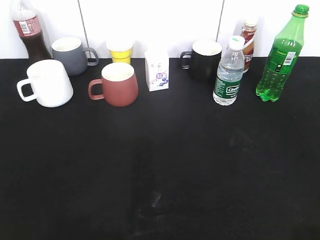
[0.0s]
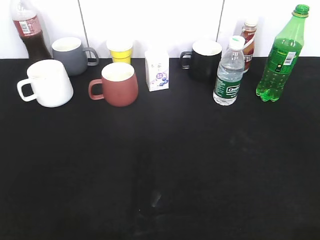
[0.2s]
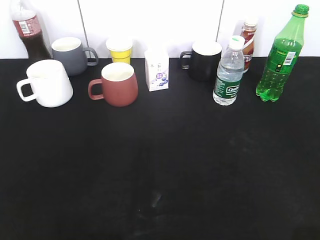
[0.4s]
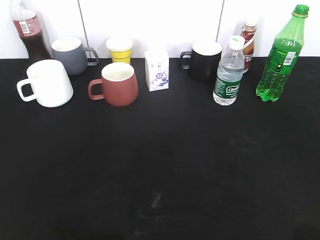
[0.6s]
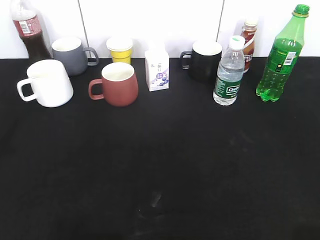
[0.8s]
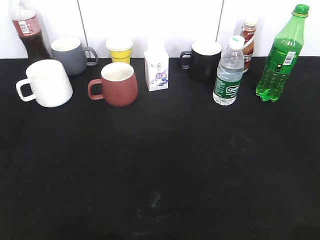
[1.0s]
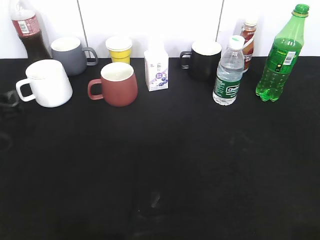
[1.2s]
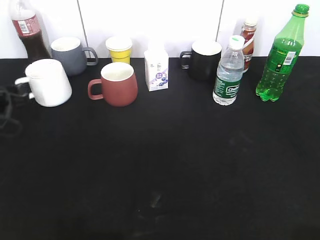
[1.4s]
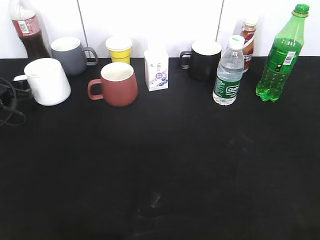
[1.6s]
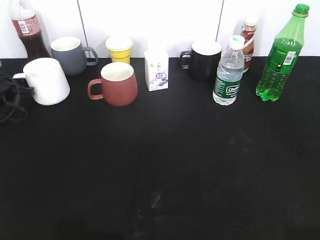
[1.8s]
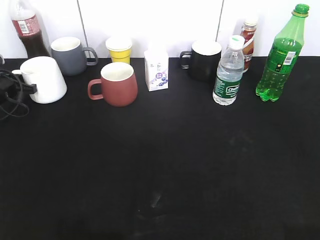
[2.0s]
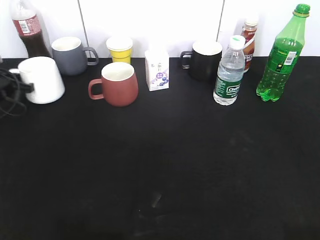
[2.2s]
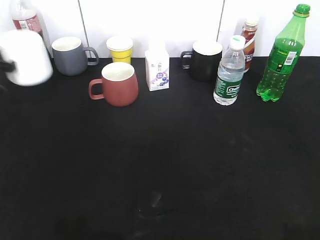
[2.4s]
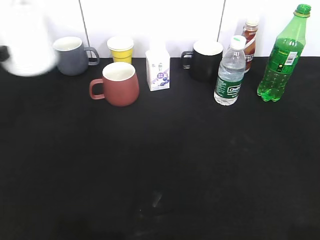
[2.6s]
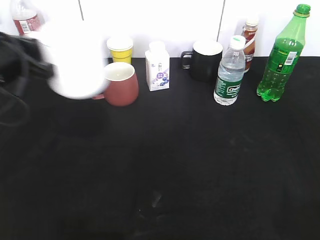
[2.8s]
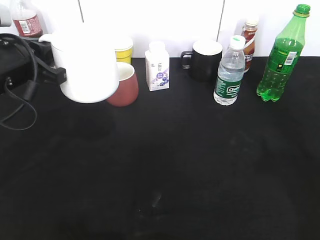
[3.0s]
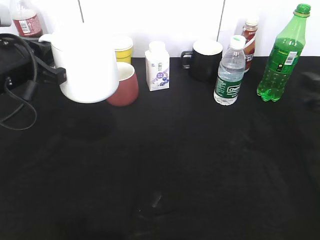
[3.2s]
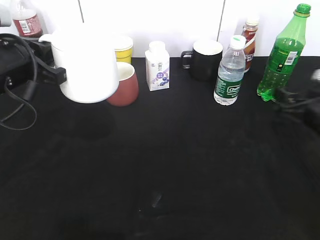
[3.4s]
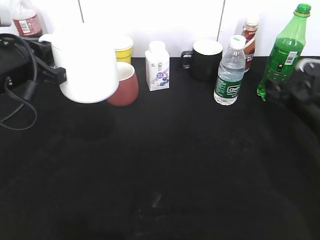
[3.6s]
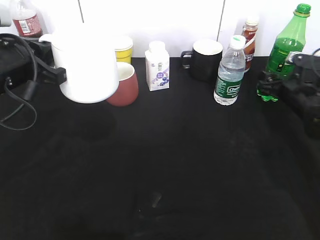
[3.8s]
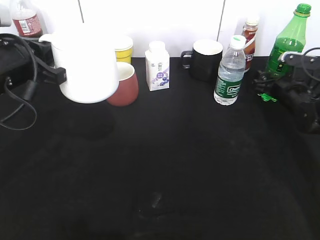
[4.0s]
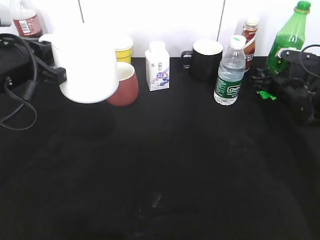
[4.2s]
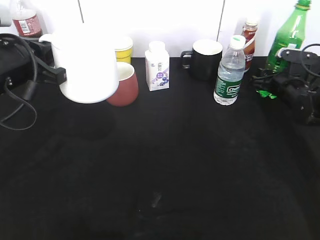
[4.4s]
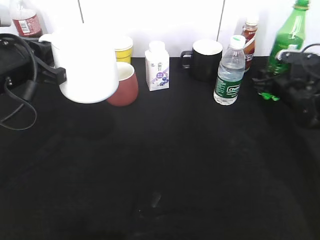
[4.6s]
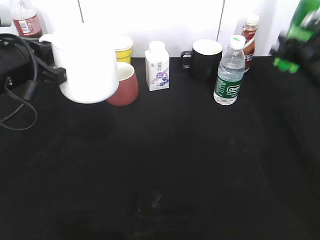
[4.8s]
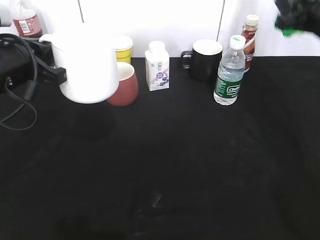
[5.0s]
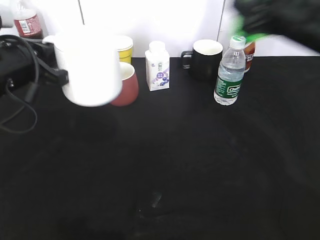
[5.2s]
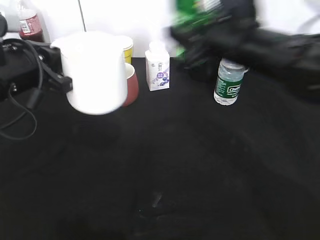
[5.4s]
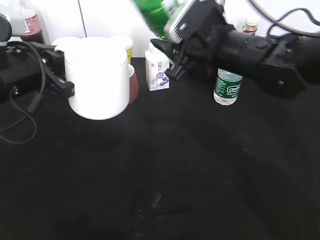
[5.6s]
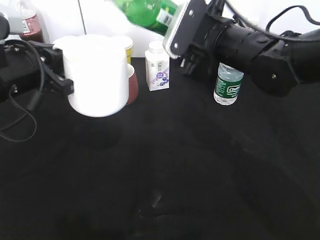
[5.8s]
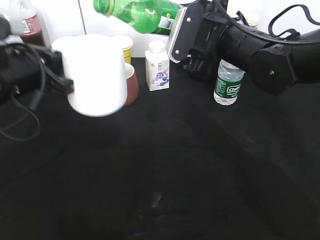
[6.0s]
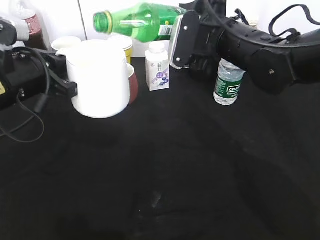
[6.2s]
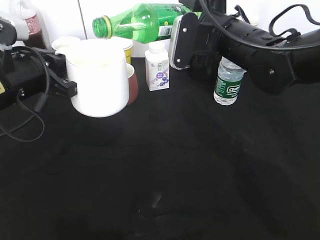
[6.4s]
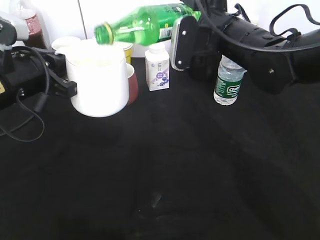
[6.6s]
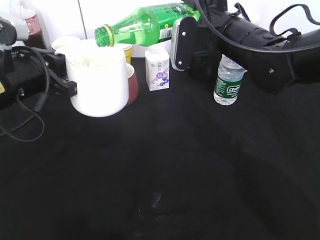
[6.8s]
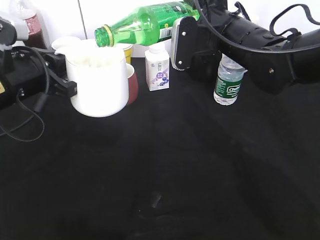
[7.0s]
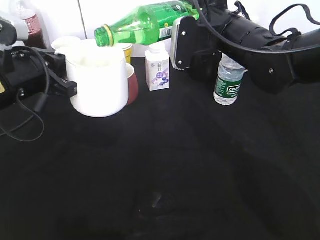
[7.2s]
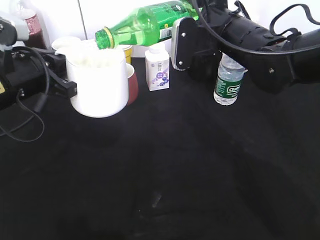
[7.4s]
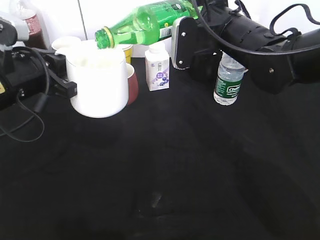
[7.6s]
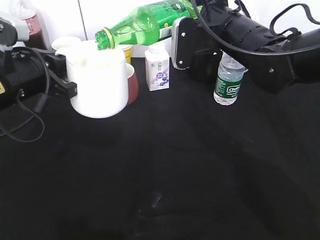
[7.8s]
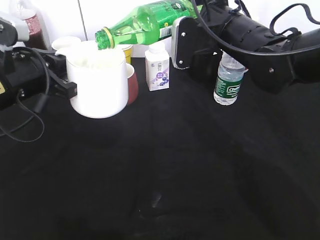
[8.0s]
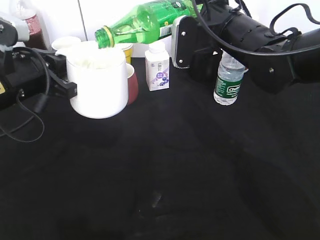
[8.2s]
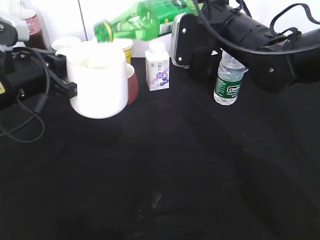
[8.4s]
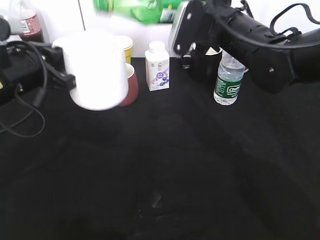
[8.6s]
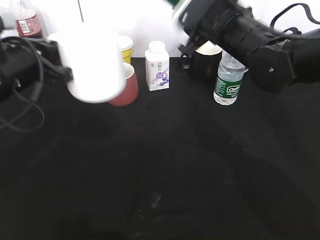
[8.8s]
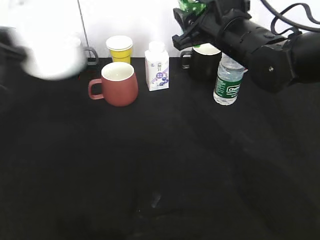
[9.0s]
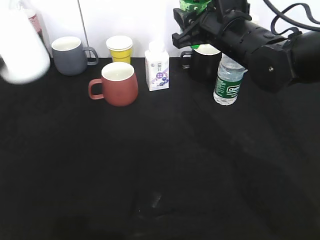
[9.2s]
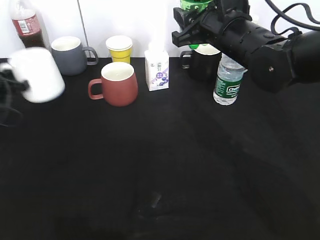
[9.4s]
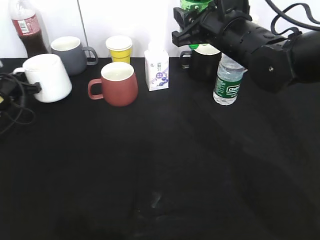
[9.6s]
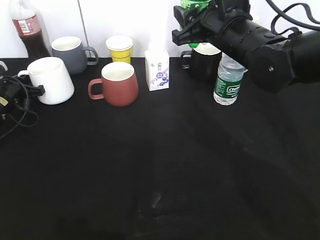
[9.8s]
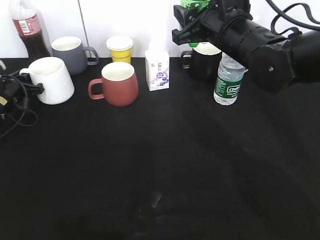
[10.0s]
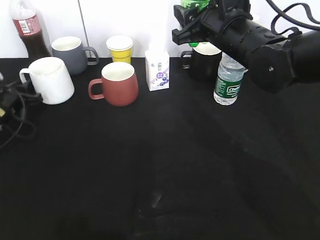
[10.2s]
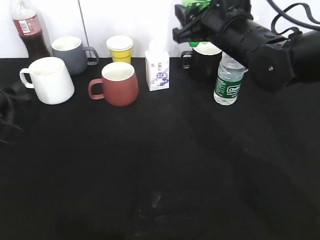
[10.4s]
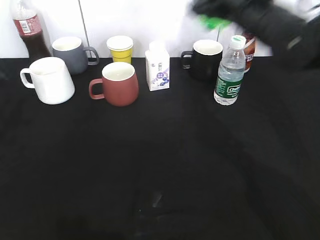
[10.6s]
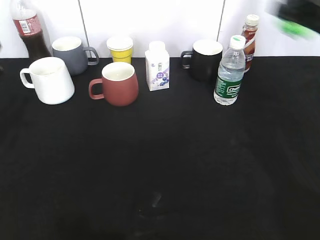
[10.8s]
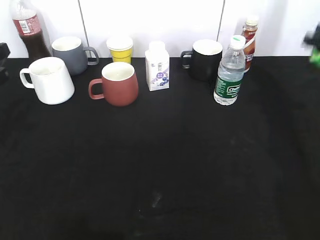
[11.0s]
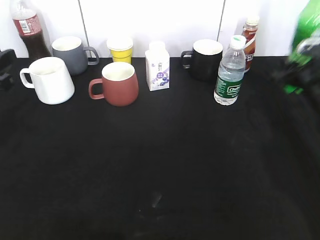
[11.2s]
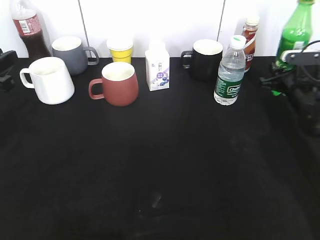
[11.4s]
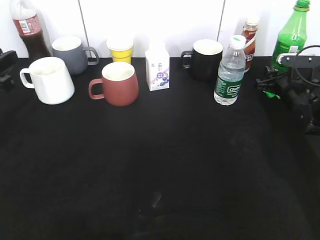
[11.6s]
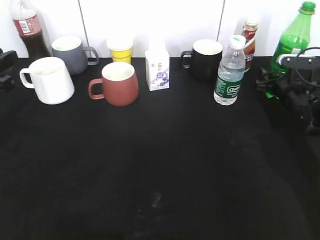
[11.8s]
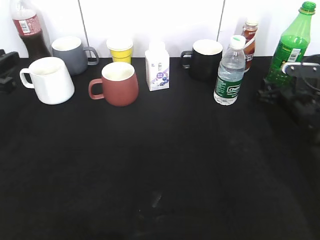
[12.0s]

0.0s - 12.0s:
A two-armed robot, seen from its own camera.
Step, 0.0s - 1.8s: Grasp the white cup with left gripper.
Step, 2.0s - 2.8s: Lift the white cup with left gripper.
Step, 3.0s - 4.2s: Grasp the bottle with sprite with right gripper.
Step, 4.6s - 8.4s: Pour the sprite from bottle to cup with right gripper.
Step, 8.8s - 10.2s: Place the white cup on the table with left gripper.
Step, 10.4s - 12.0s: Place the sprite bottle on the table with right gripper.
0.0s - 1.6s: The left gripper moves forward and downward, some 50 cm.
1.6s - 3.0s: The left gripper moves upward, to the right and backward, about 25 cm, and closes. The right gripper moves forward, about 15 cm.
3.0s - 4.4s: The right gripper moves forward and downward, approximately 35 cm, and opens, then closes again.
4.4s - 6.0s: The right gripper is displaced to the left, upward and backward by roughly 25 cm, and closes.
7.6s - 9.0s: The left gripper travels to the left by roughly 5 cm.
9.0s - 10.4s: The left gripper heads downward and forward, covering about 15 cm, and opens up.
10.4s - 12.0s: The left gripper goes approximately 15 cm upward and backward. Meanwhile the right gripper heads to the right and downward, covering about 25 cm, and opens.

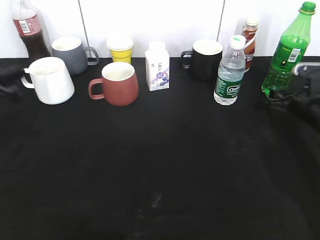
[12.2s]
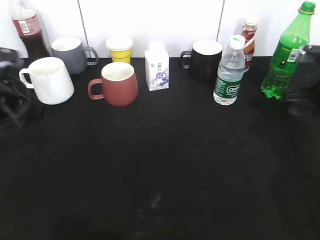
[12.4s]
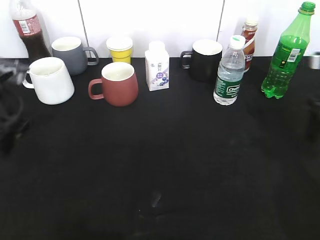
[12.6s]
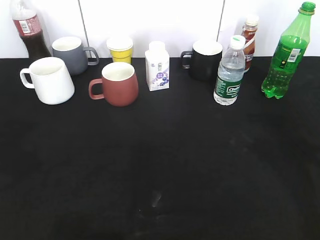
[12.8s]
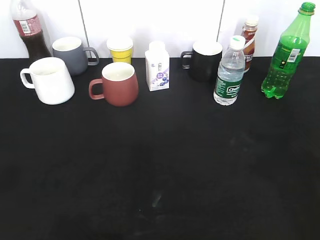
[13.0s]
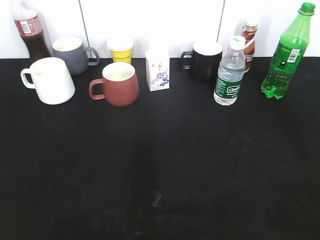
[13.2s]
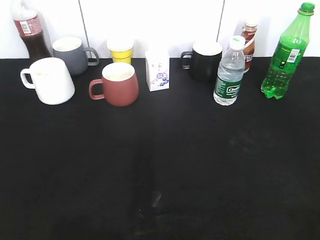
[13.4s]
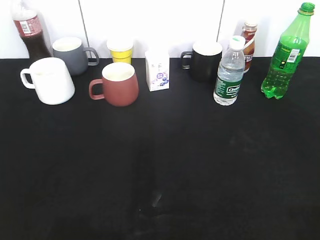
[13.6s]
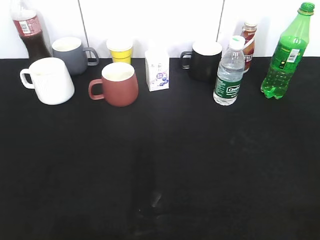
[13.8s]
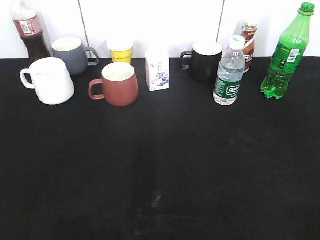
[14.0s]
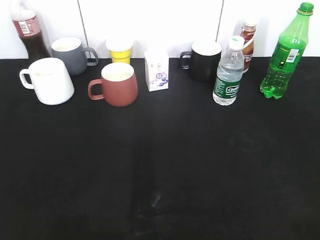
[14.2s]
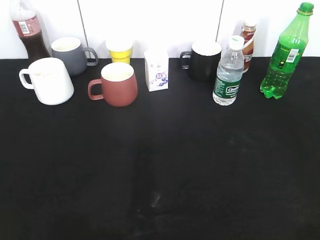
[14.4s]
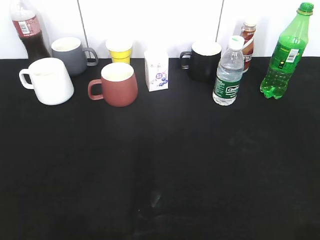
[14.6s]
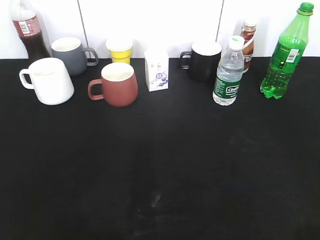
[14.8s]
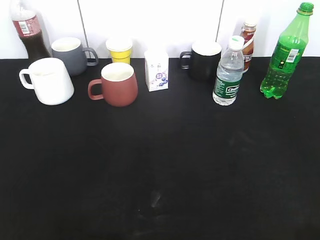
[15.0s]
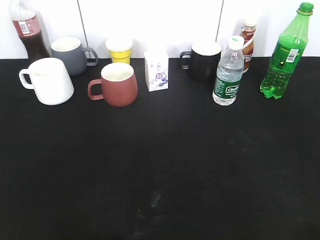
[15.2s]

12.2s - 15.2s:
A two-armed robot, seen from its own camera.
12.2s - 13.8s: Both grippers move backward and upward, roughly 35 cm. The left gripper opens up.
13.8s - 15.2s: The left gripper closes its fingers.

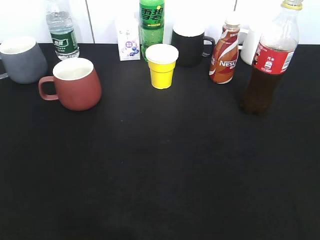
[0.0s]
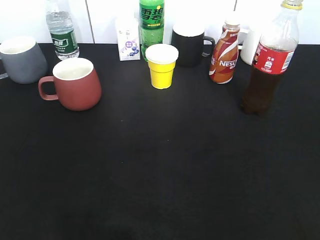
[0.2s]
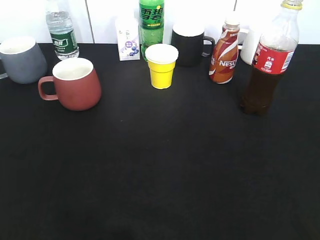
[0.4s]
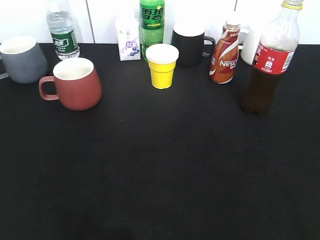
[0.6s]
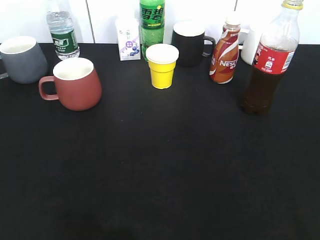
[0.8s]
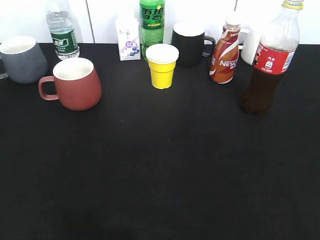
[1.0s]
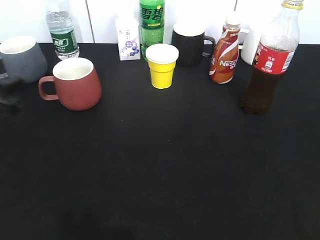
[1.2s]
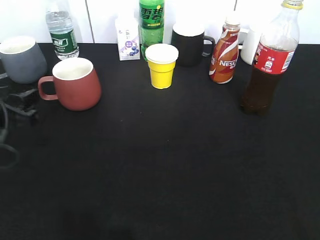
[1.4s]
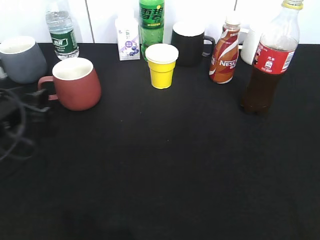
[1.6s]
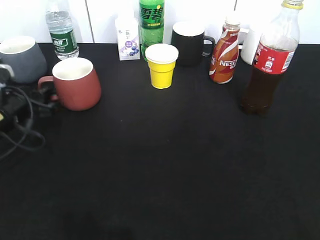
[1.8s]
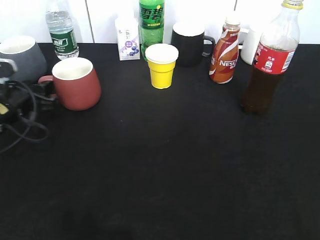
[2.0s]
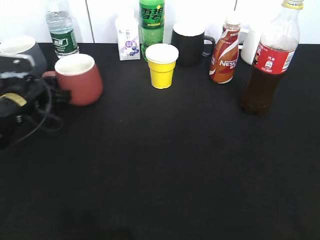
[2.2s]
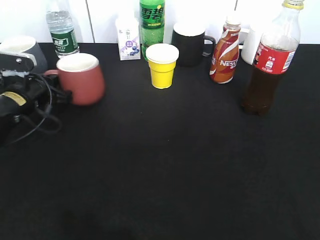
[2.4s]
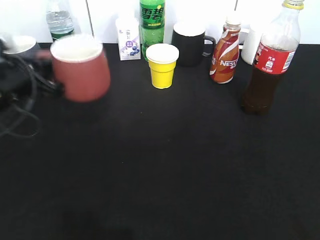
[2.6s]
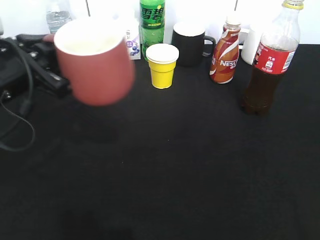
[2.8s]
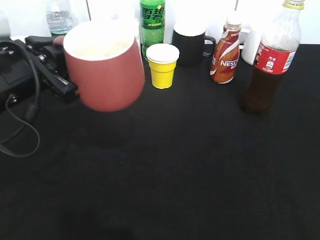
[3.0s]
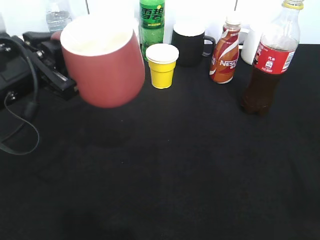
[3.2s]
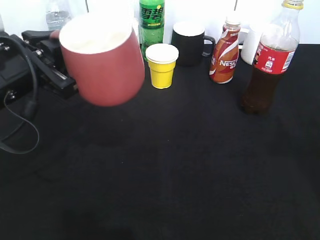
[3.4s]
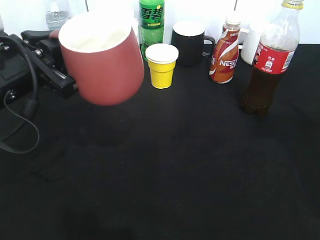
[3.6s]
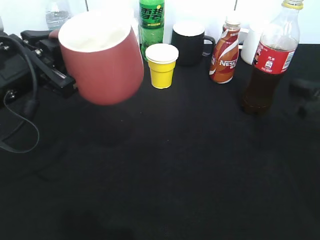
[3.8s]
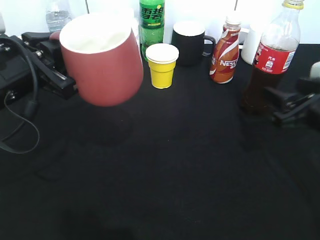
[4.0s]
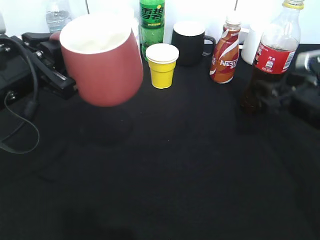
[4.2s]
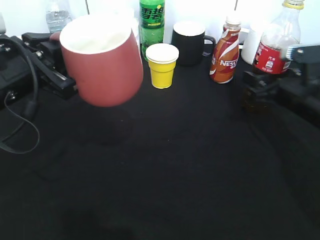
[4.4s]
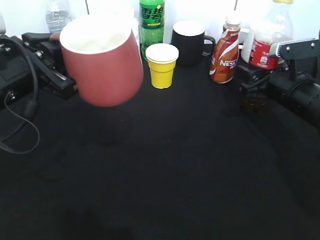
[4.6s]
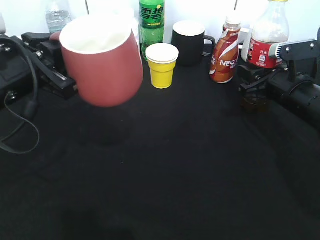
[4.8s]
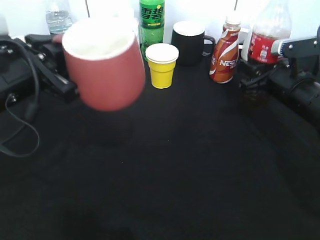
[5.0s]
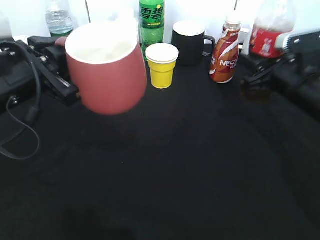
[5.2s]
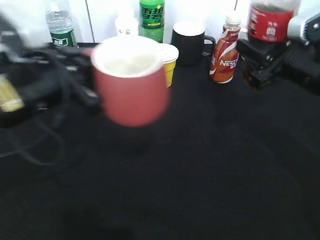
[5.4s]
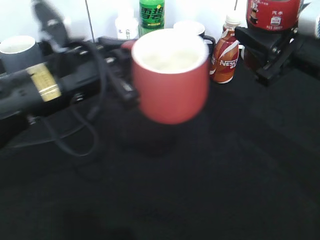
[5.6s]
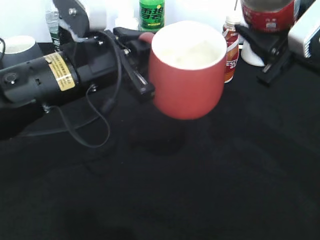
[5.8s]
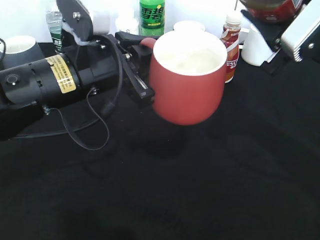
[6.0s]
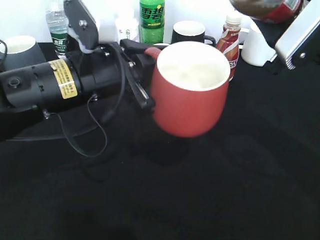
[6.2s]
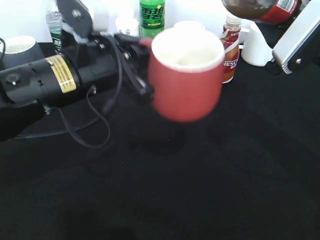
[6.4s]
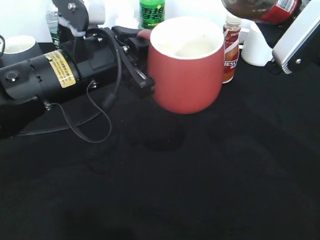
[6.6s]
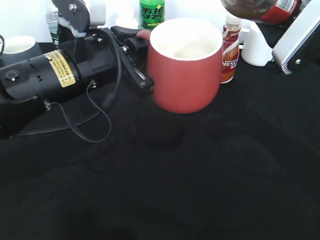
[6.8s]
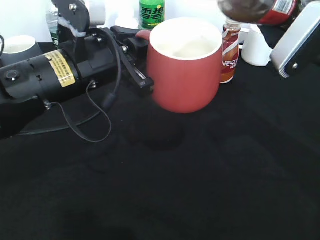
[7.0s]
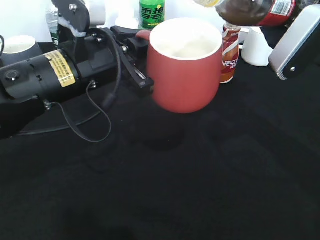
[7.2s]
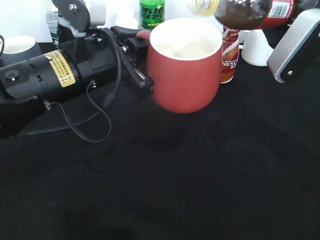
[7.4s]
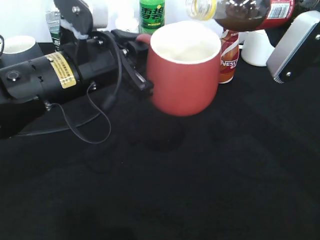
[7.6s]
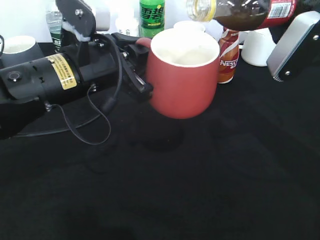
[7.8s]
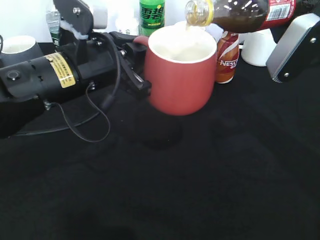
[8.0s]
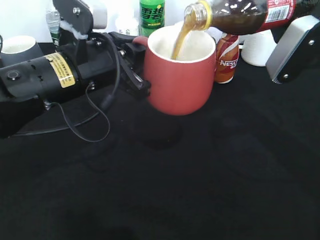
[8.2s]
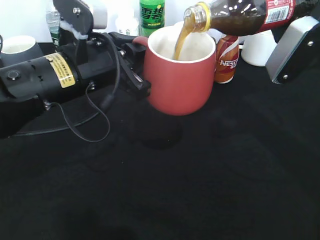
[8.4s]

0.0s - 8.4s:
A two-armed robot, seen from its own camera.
Step, 0.0s - 2.2s: Grasp the red cup with left gripper.
Step, 2.4s - 3.4s: Lift the red cup with left gripper.
Step, 3.8s - 4.8s: Grasp the bottle with cola with right gripper.
0.0s - 1.4s: The left gripper heads forward and downward, covering some 25 cm.
1.4s - 2.8s: The left gripper travels upward and to the right by about 10 cm, and closes up.
2.8s - 4.2s: The right gripper is displaced forward and downward by approximately 30 cm, and opens.
4.2s - 5.6s: The left gripper heads to the right, covering approximately 10 cm. The right gripper heads upward, covering roughly 10 cm, and closes.
7.0s - 8.4s: The grippers move only a little.
